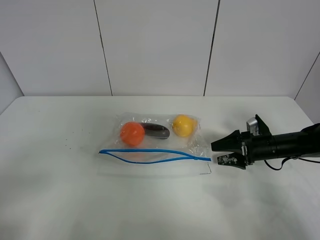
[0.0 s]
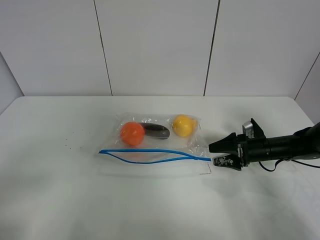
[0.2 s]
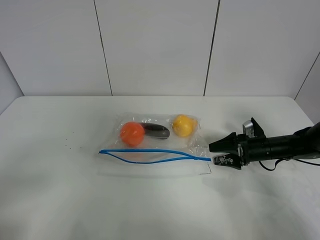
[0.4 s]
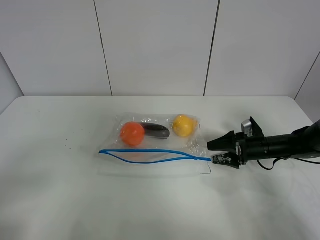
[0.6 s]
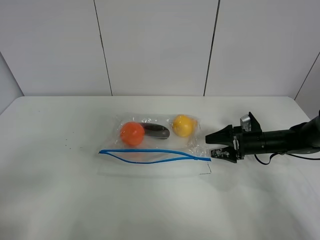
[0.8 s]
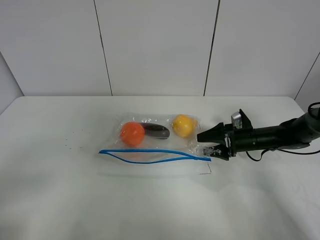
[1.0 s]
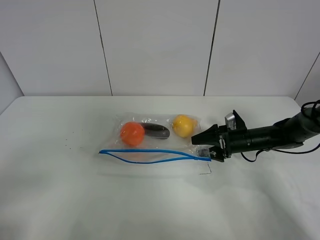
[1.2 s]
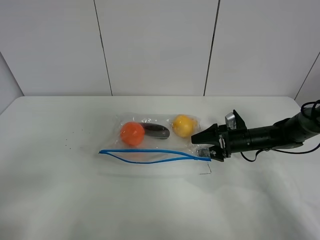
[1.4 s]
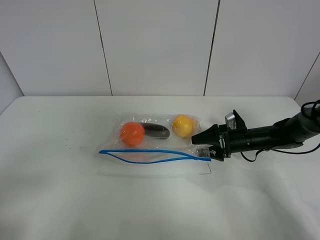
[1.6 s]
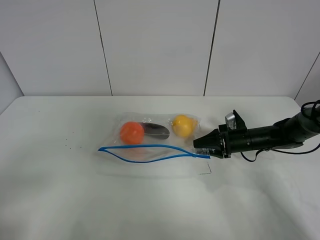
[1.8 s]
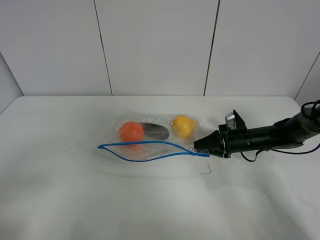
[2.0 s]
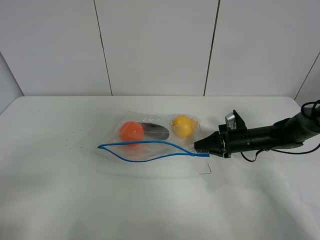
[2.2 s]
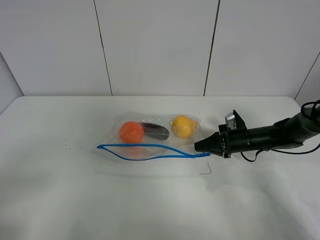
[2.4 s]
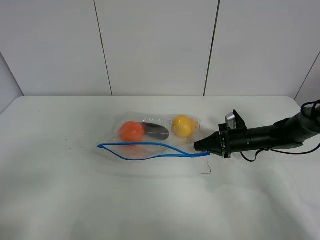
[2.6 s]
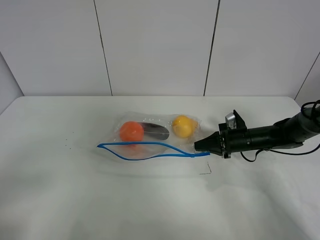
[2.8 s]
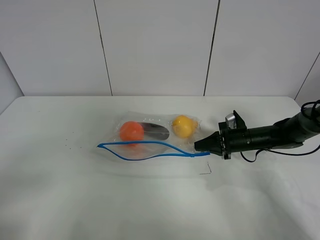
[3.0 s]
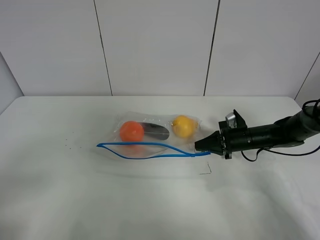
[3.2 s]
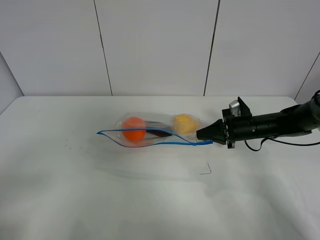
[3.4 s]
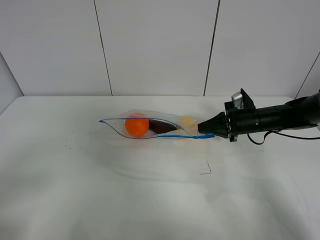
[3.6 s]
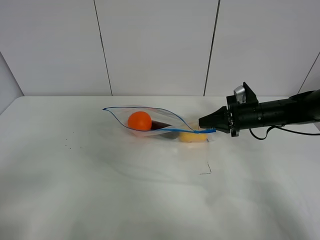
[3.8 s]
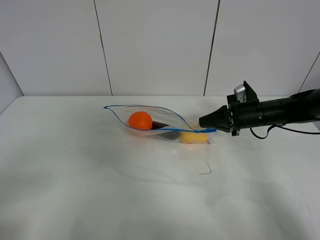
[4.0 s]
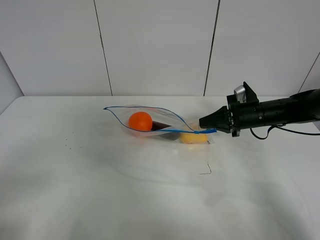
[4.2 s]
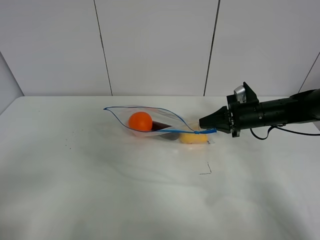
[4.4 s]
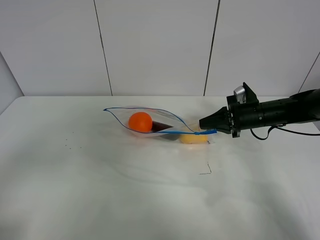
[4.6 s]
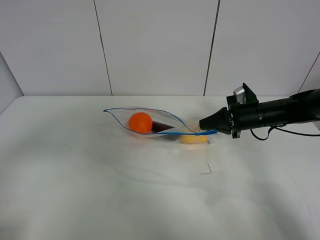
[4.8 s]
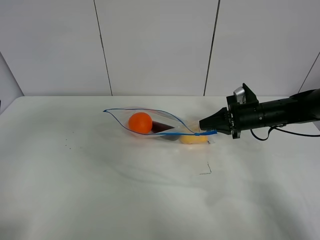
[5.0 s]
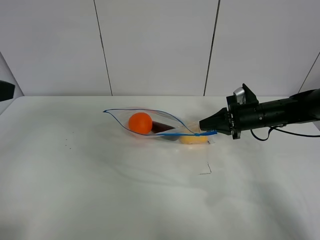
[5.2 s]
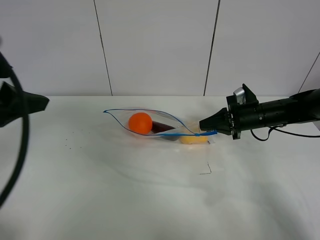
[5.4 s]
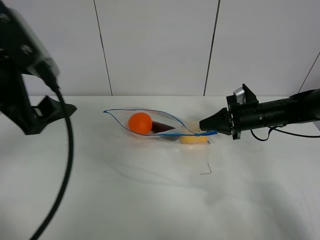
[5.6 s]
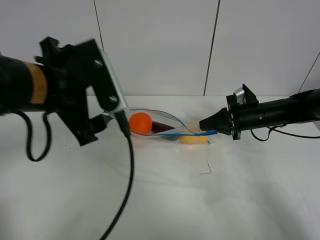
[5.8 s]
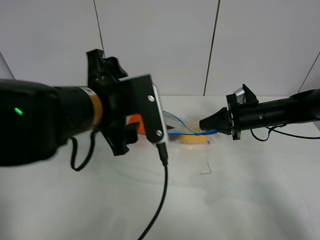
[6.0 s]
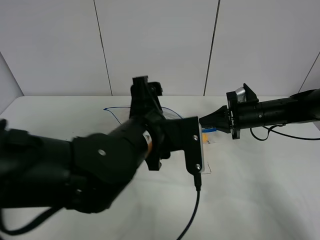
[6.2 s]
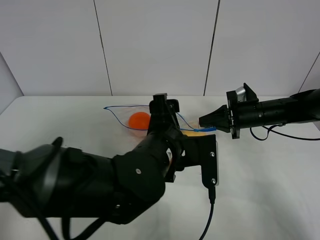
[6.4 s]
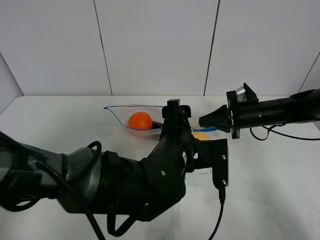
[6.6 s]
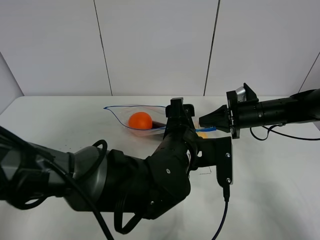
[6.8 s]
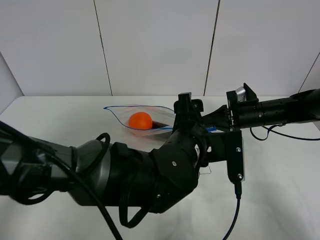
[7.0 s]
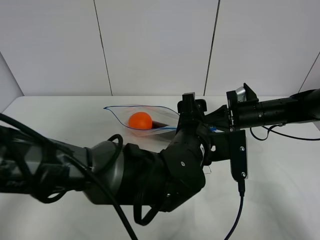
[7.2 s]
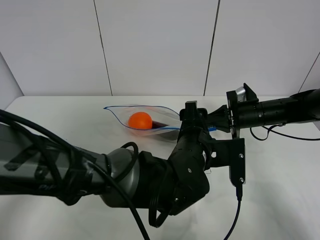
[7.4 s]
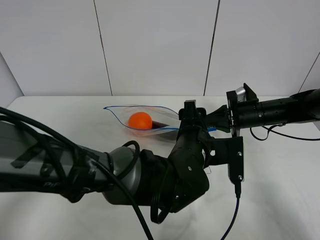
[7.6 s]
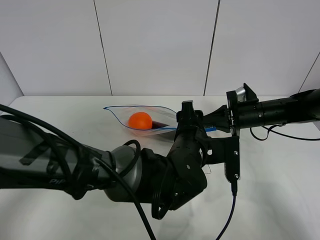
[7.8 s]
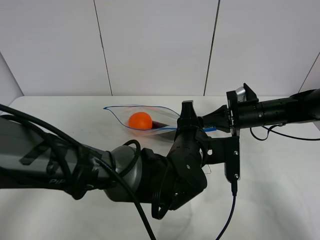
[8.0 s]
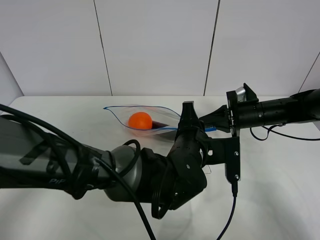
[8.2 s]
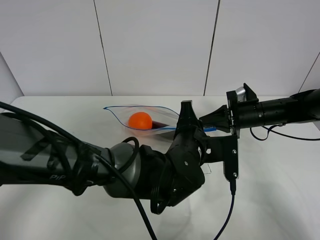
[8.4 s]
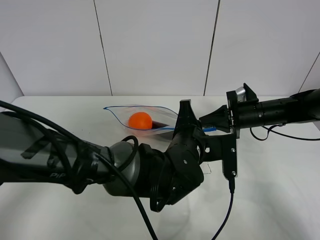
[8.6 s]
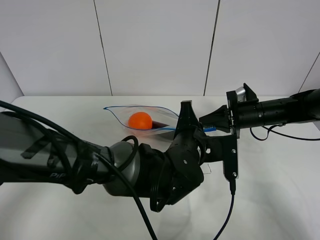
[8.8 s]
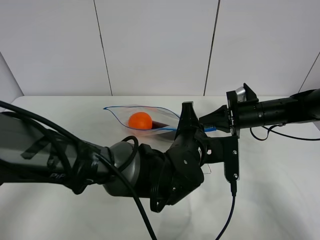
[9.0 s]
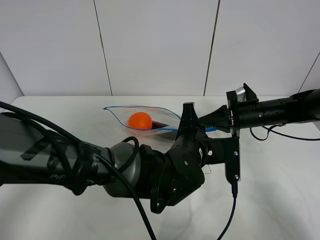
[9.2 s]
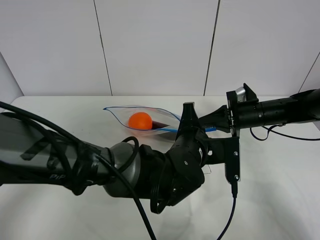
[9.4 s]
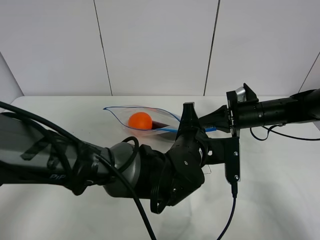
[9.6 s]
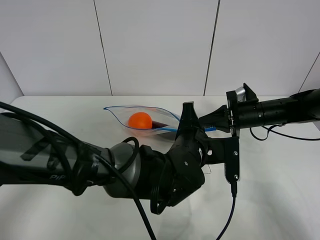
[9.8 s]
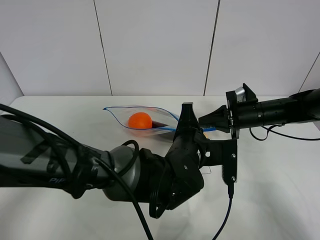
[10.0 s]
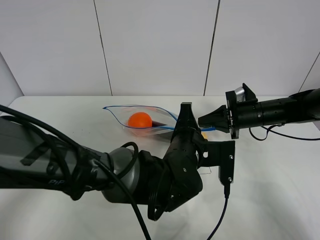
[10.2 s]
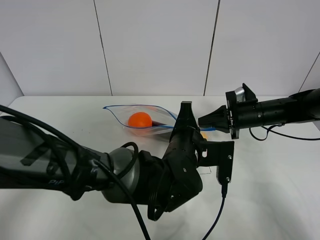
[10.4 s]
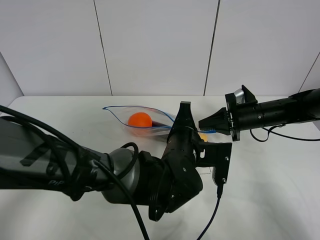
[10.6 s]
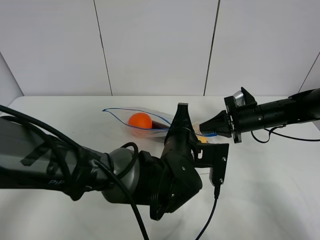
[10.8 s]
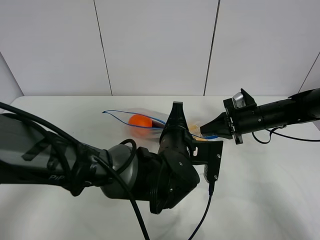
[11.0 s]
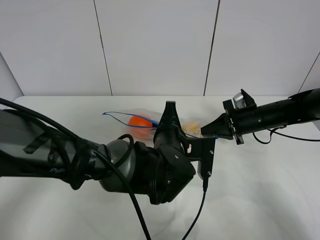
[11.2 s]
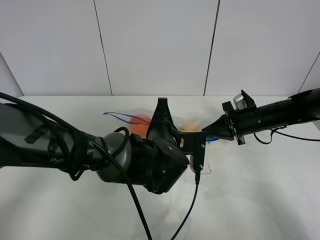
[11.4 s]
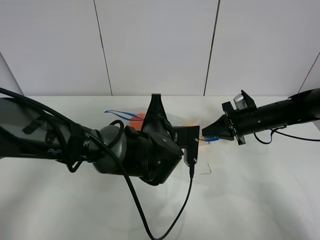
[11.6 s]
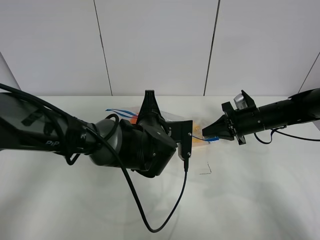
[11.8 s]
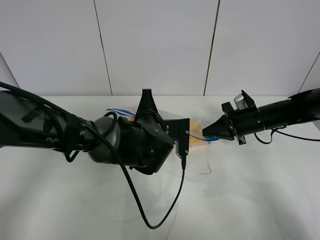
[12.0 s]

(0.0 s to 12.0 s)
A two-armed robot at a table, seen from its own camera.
Step, 0.0 s - 2.4 s: Grasp the fruit bag with right gripper.
Step, 2.6 s - 4.0 s: Lift the fruit bag with your right gripper.
0.0 s - 1.6 s: The right gripper moves approximately 5 cm.
1.6 s - 3.0 s: The right gripper closes its fingers.
3.0 s - 4.4 s: The right gripper heads upward, covering about 10 cm.
4.4 s - 6.0 s: The left gripper is displaced to the right and forward by some 30 cm.
6.0 s - 7.6 s: The left gripper goes about 15 cm to the right and downward.
7.6 s - 9.0 s: The left gripper closes its fingers.
9.0 s - 10.4 s: The grippers move only a little.
10.4 s - 12.0 s: The left gripper goes roughly 10 cm to the left and forward.

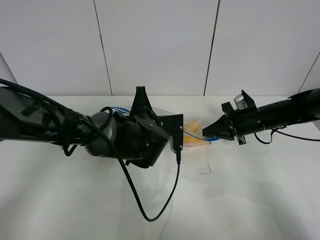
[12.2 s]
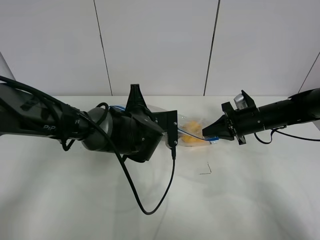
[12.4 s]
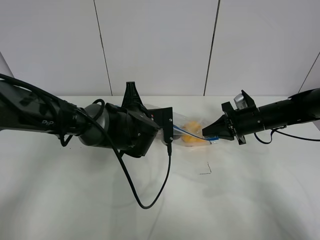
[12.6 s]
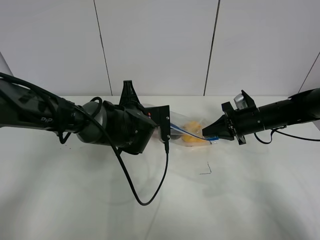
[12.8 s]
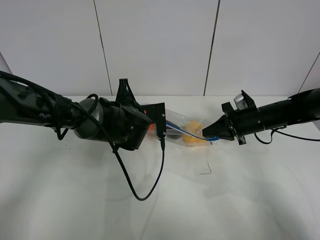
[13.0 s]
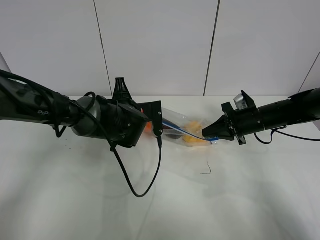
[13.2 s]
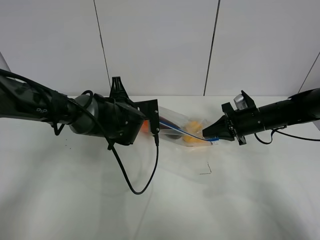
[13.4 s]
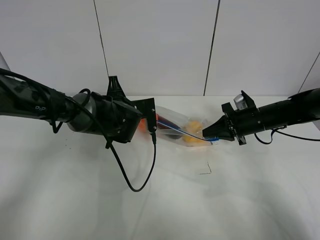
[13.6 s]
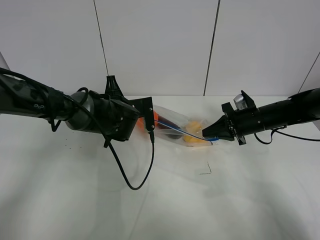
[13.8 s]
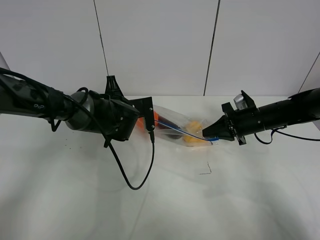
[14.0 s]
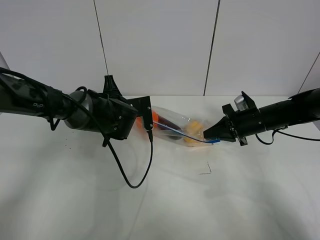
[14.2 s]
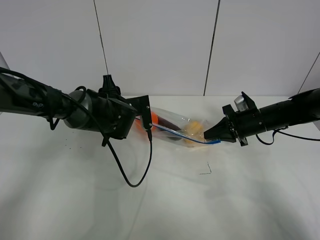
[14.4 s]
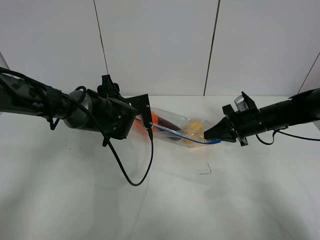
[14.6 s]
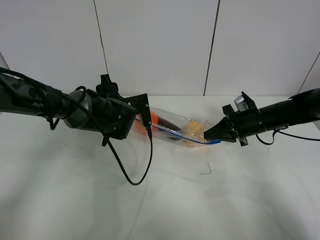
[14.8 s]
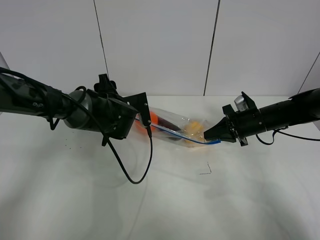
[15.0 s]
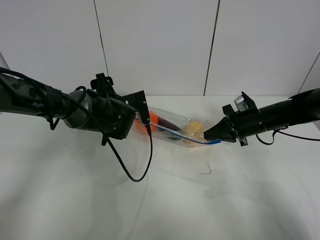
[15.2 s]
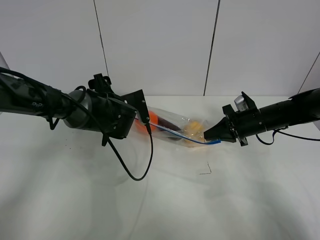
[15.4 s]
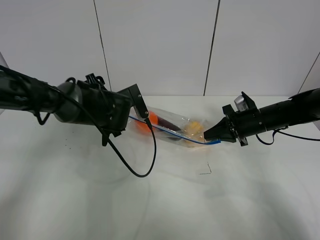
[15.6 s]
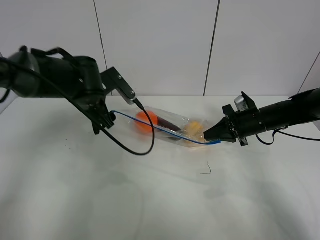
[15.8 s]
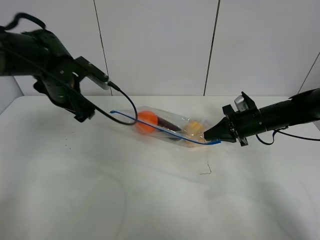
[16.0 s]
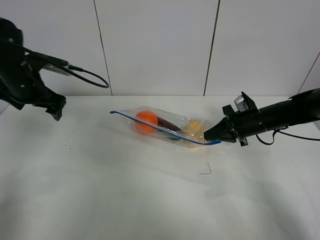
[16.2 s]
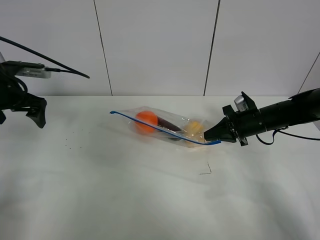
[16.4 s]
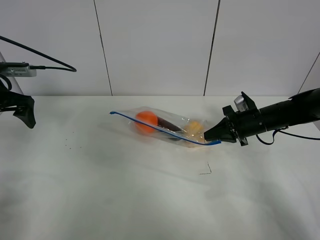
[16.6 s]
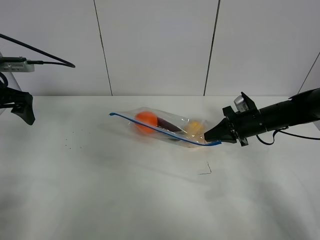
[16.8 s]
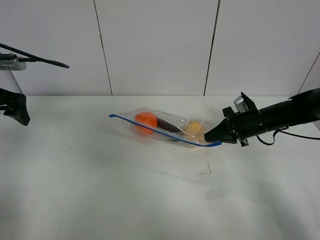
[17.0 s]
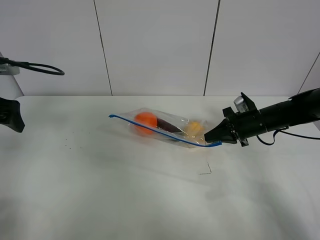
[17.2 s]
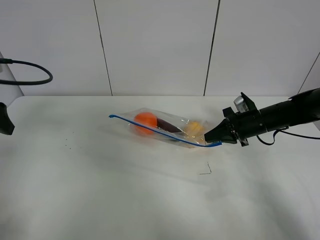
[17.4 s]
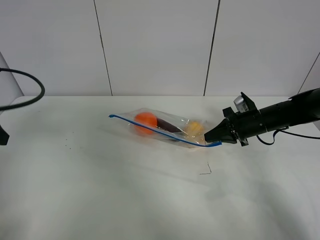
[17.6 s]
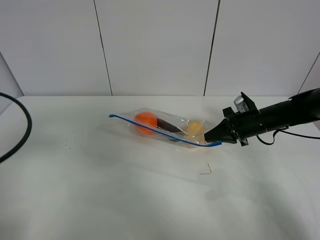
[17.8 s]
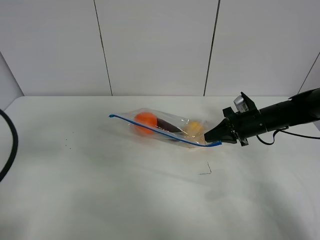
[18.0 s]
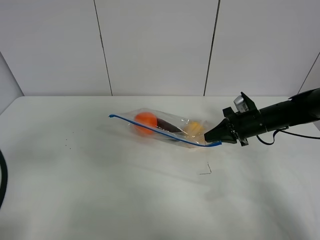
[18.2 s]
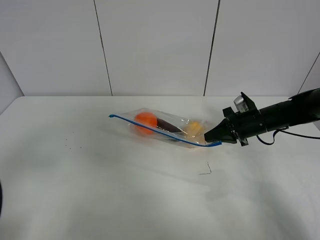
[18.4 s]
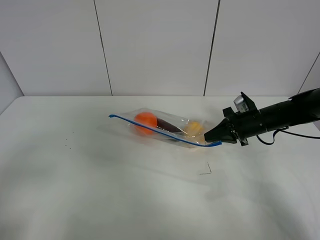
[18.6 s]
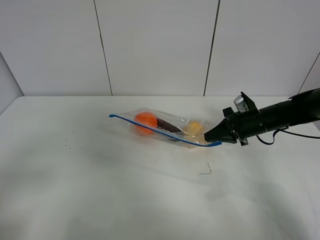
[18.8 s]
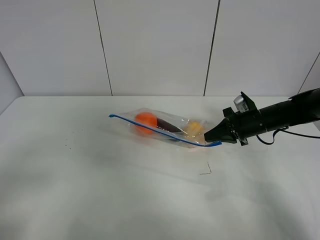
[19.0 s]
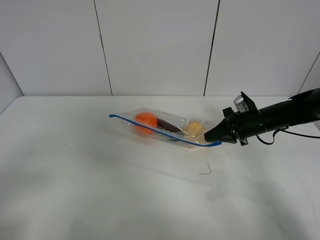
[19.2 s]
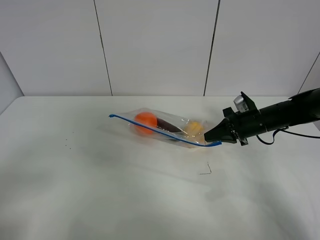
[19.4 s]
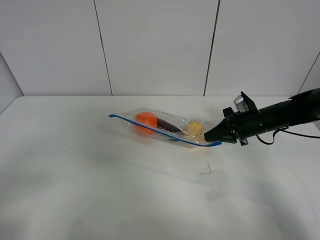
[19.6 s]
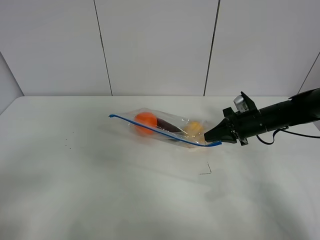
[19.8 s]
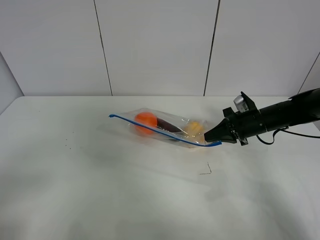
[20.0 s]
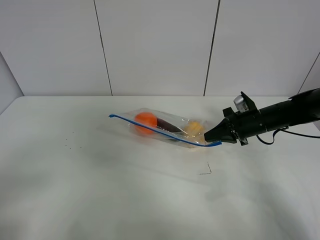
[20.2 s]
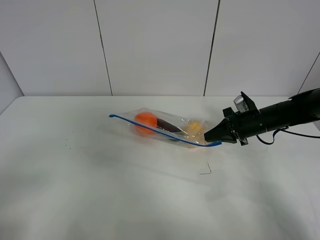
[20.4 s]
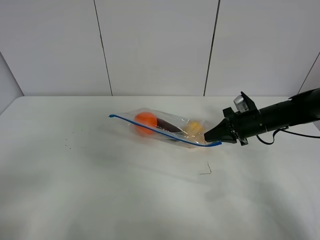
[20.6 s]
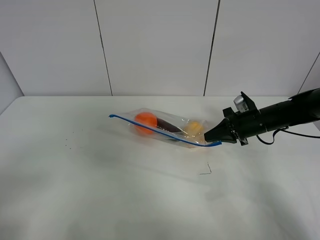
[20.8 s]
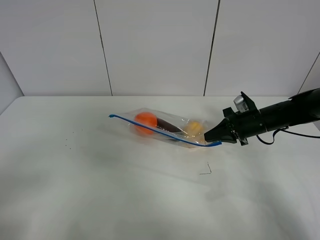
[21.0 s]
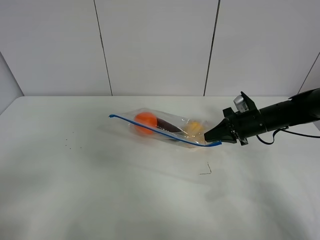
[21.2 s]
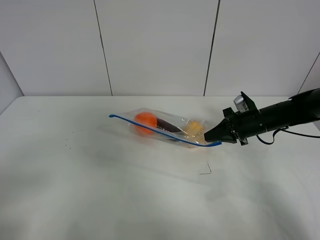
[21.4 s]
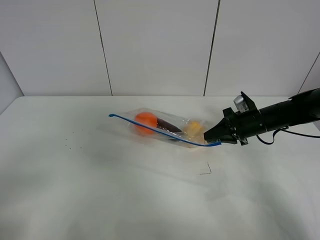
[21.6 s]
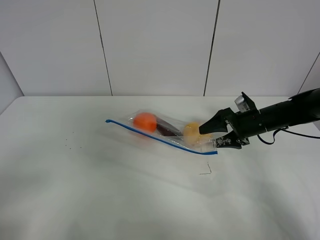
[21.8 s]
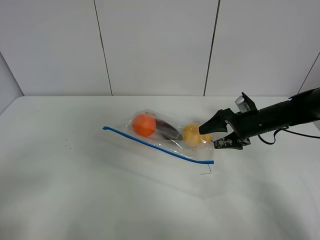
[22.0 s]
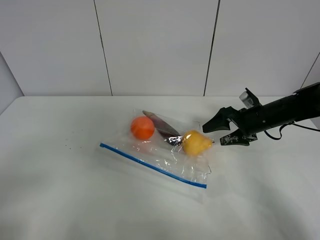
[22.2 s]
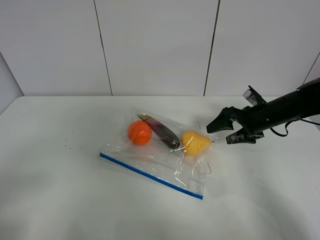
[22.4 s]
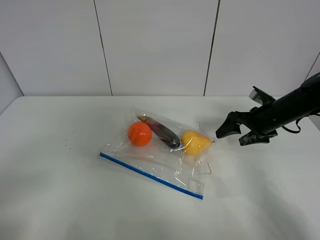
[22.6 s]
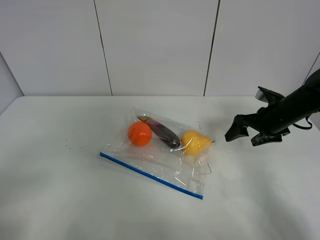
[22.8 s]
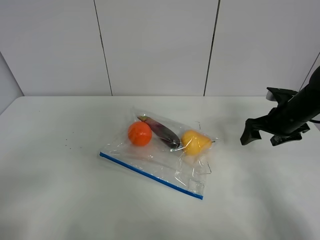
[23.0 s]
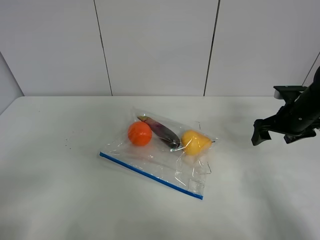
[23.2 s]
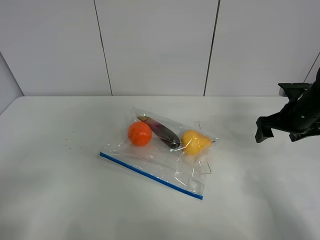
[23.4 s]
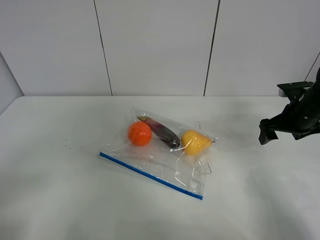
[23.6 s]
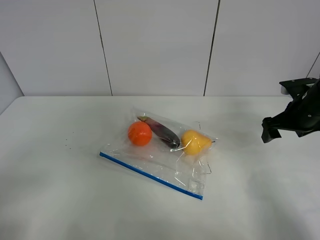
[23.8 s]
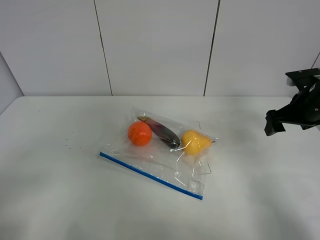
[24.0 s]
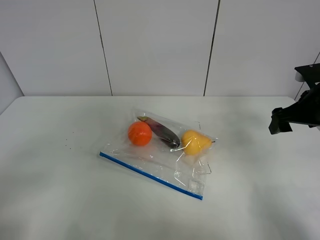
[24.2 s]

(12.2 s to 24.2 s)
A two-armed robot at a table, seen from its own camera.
Step, 12.2 s - 14.4 s: Pull the fruit bag with left gripper.
12.2 s - 13.8 s: The left gripper goes approximately 10 cm to the left and forward.
13.8 s - 15.2 s: The left gripper opens up.
15.2 s - 16.6 s: The left gripper goes about 25 cm to the left.
16.6 s - 18.2 s: The left gripper travels backward by some 25 cm.
19.8 s - 21.2 s: Both grippers stay about where they are.
21.2 s - 22.6 s: The right gripper opens up.
22.6 s - 24.2 s: The right gripper heads upward and backward, covering approximately 10 cm.
